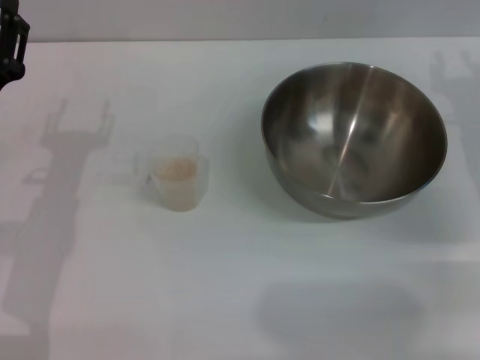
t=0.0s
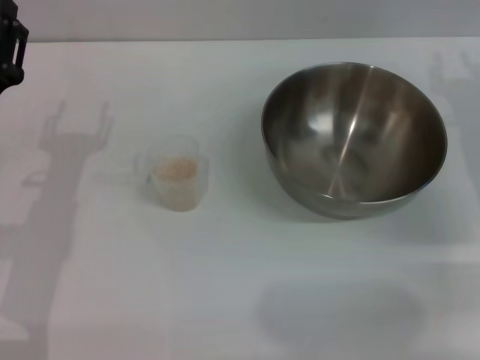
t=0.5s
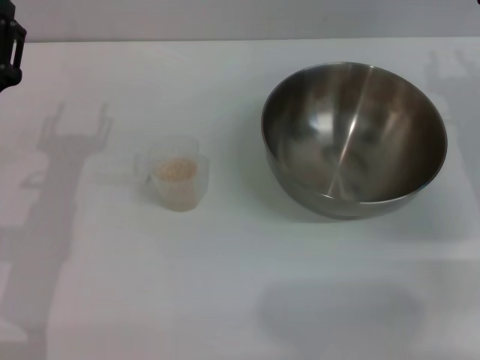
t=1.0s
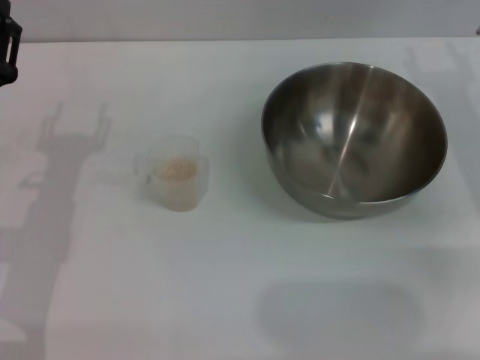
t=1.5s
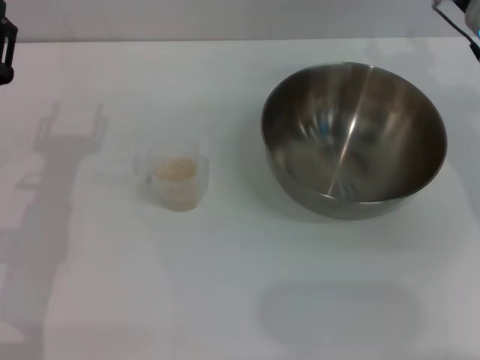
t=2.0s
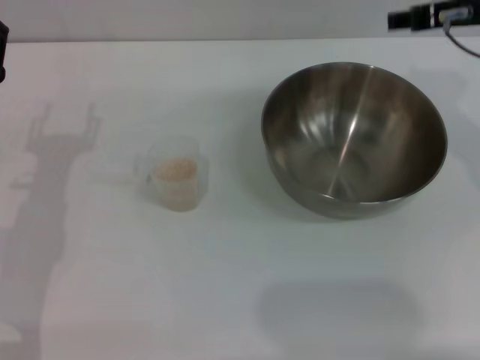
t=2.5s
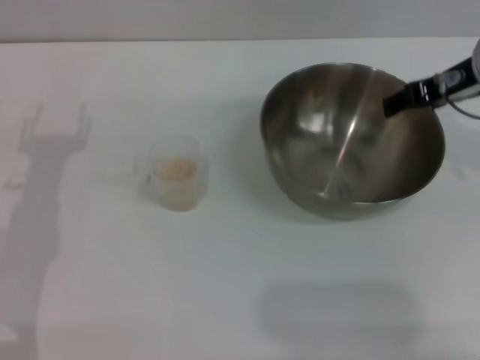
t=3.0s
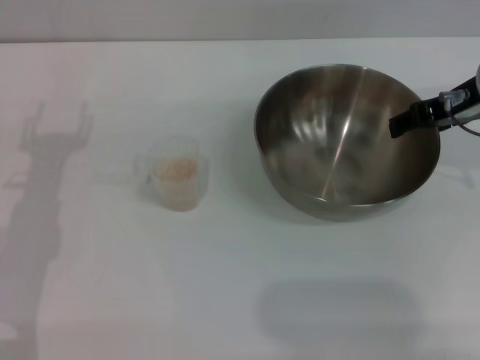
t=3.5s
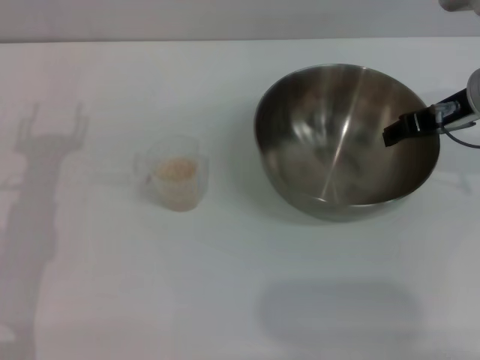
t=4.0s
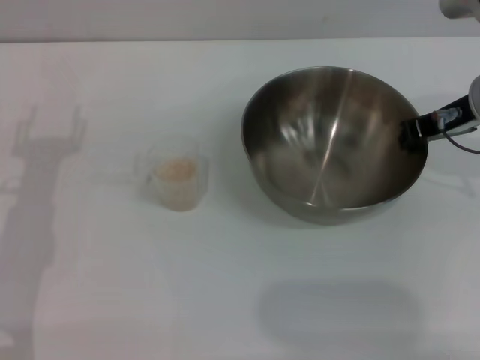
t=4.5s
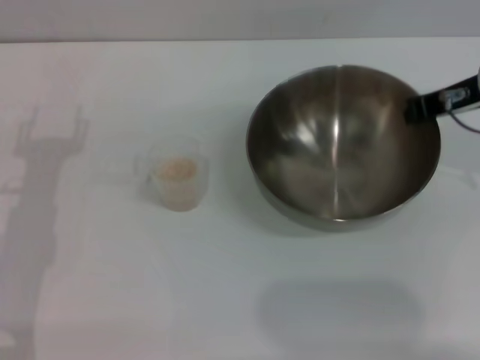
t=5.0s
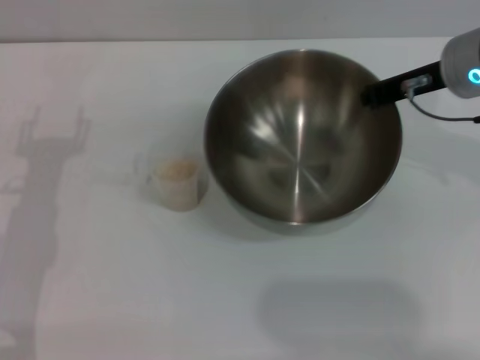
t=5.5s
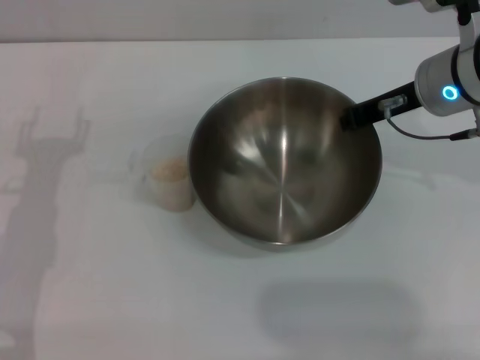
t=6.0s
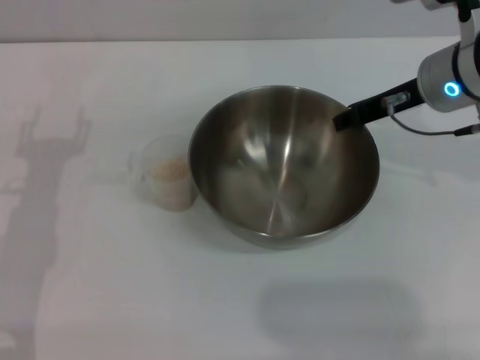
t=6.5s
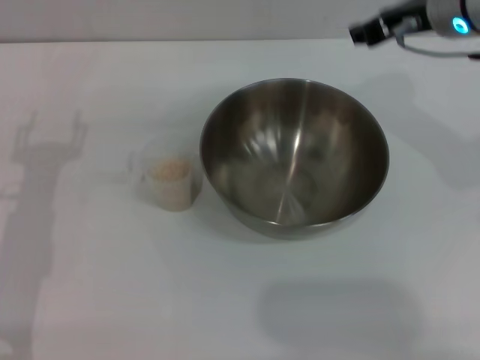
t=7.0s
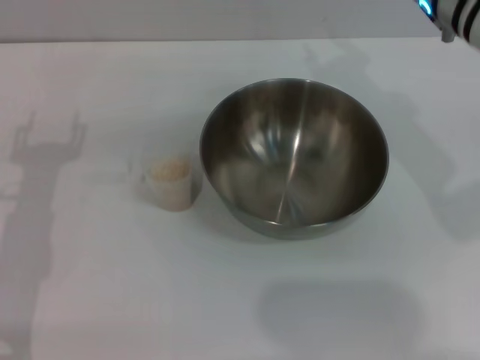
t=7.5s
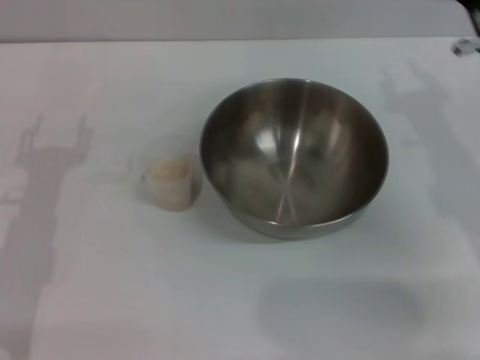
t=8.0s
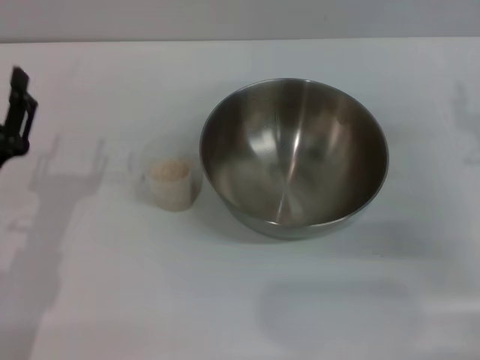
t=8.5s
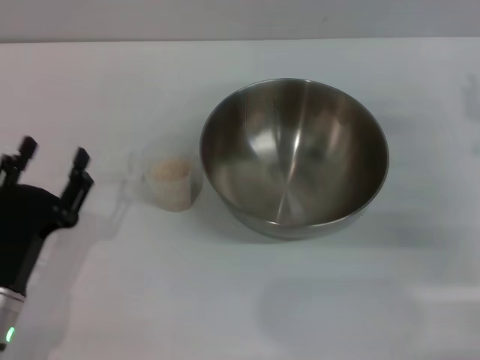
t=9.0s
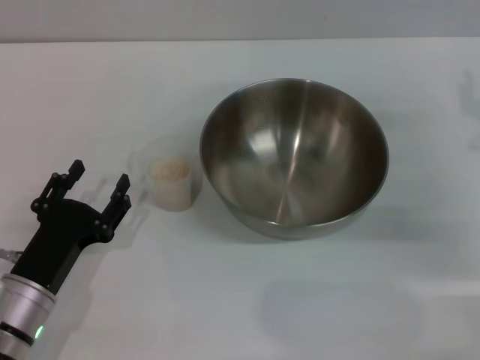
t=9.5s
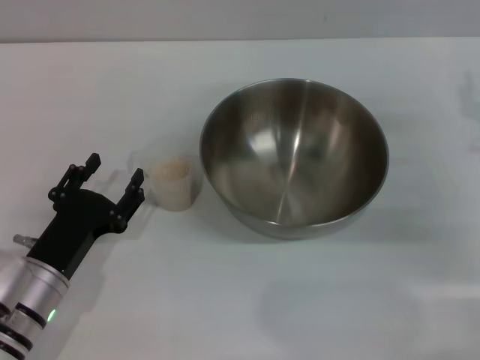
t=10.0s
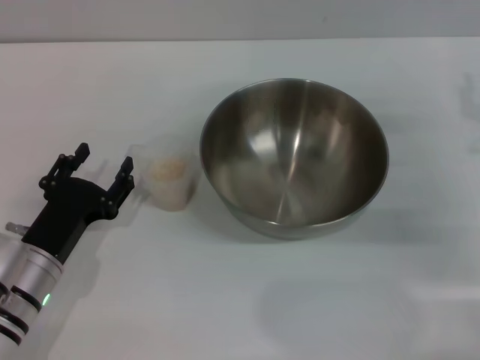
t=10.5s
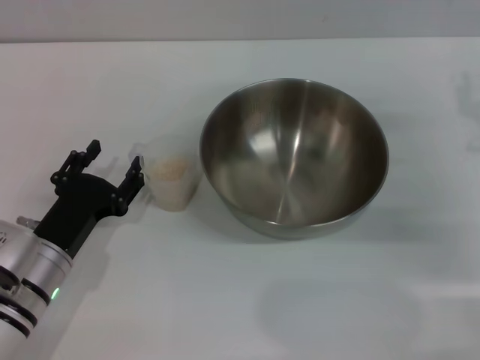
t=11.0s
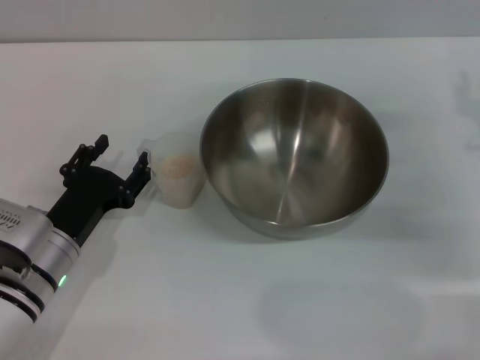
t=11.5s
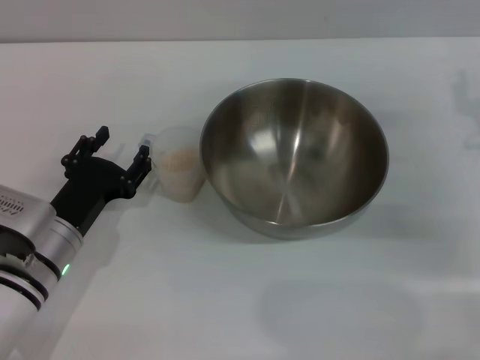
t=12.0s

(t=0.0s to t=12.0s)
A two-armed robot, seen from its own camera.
Task of the whole recording: Place the bowl in the middle of the table with one hand and pour the rice from the grain cup into it with the other hand.
Step, t=0.0s - t=5.0s: Pick up the bowl with the right gripper.
Step, t=5.5s - t=6.5s: Place the bowl in the center of view with the right gripper.
t=0.0s - t=2.0s: The right gripper is displaced upward by some 5 cm, and opens its fingers.
t=4.0s - t=6.0s: The right gripper closes.
t=6.0s - t=8.0s: The right gripper travels backward by roughly 5 cm, and opens up.
t=8.0s - t=10.0s: The right gripper travels to the right by roughly 5 cm; the left gripper shifts approximately 10 cm downward.
t=10.0s - t=12.0s: There are only small adjustments of the grippers.

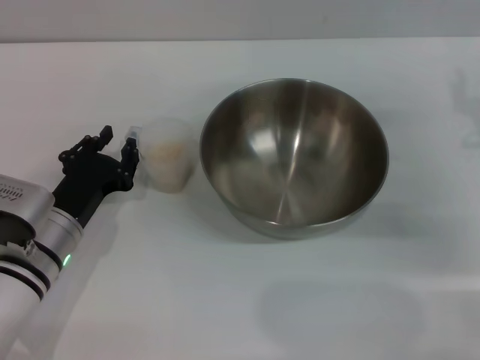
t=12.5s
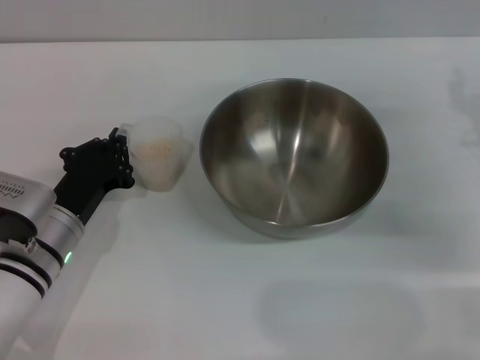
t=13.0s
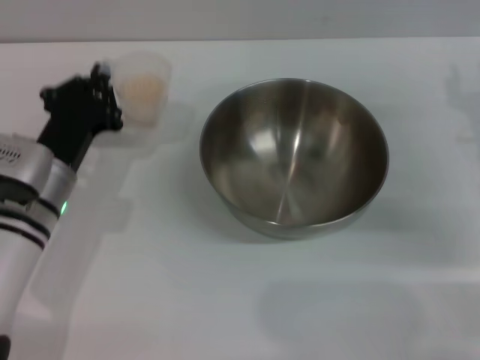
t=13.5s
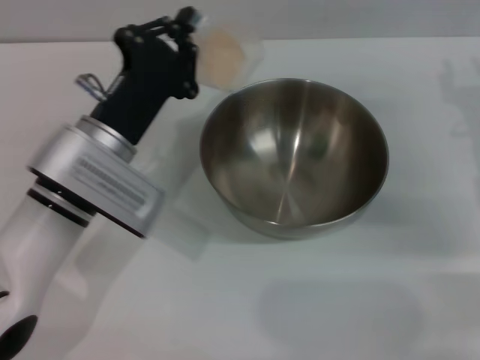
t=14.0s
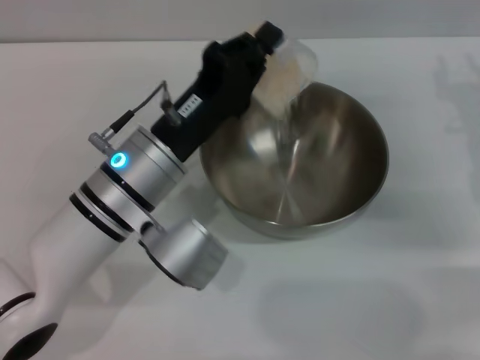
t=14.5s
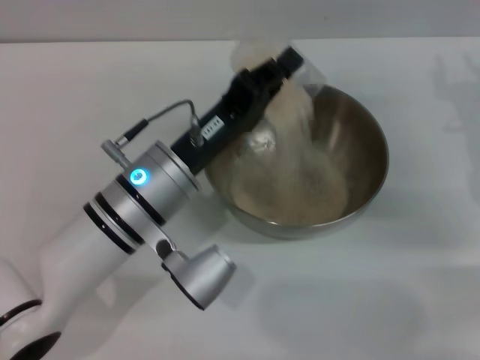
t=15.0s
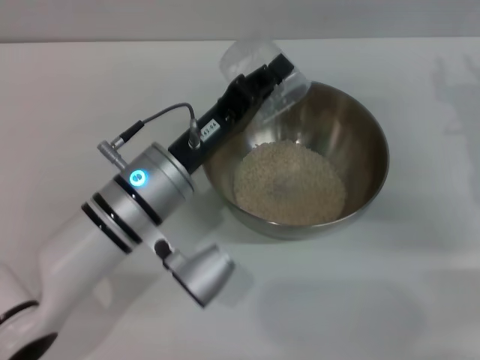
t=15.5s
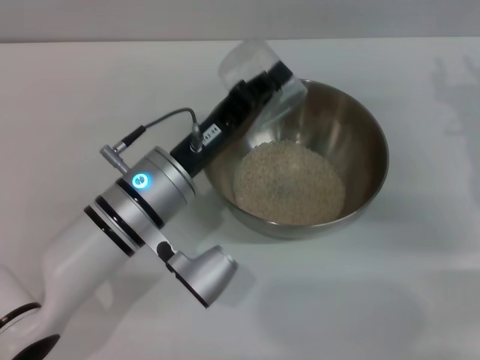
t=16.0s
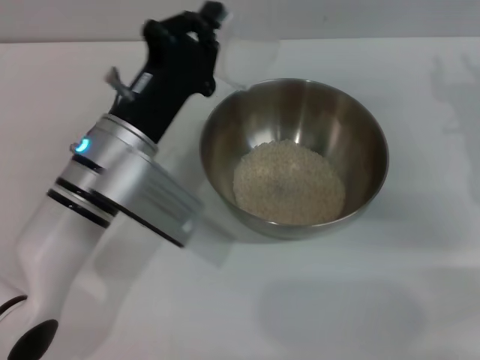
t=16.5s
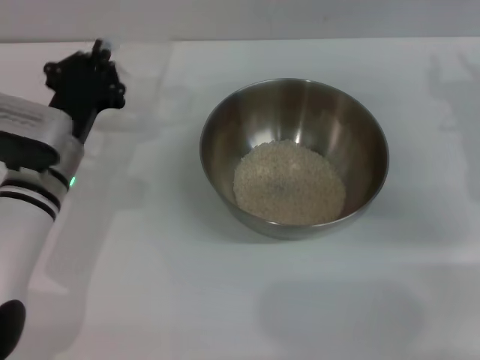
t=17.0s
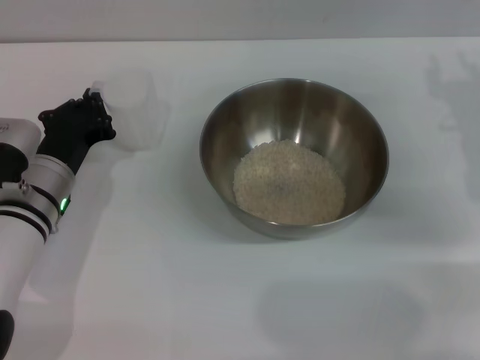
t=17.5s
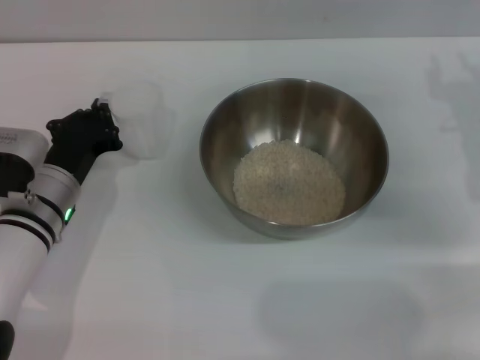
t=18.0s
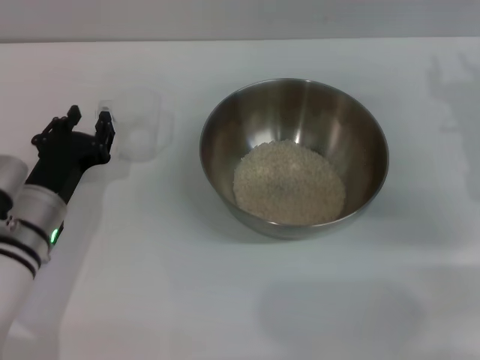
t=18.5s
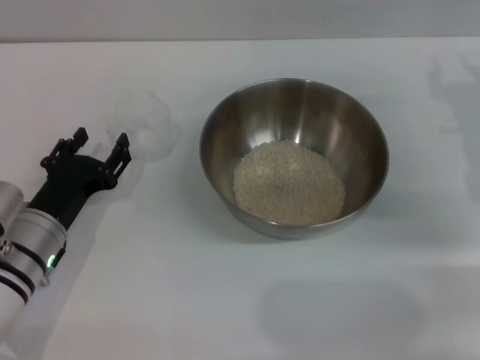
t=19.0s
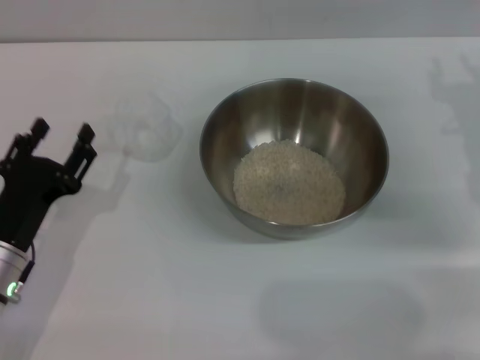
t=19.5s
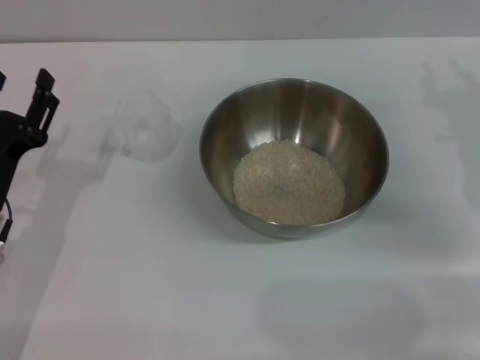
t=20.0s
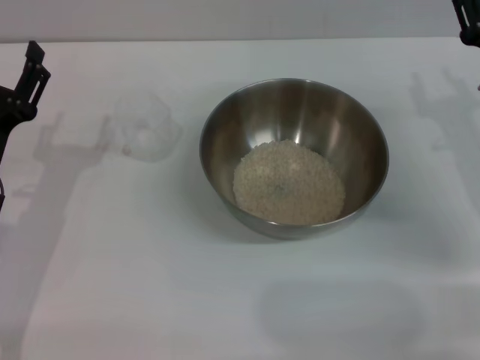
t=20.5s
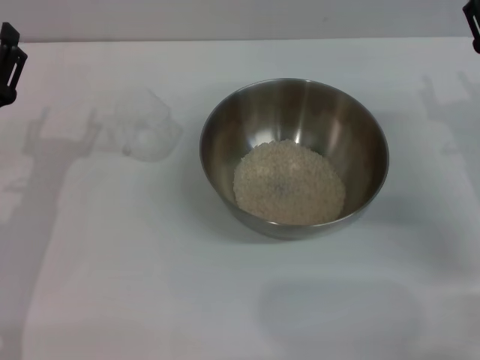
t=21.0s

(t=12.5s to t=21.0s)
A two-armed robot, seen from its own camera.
Task of the whole recording: Place the bowl in the middle of the table with one hand and pour the rice from the grain cup into it with the other hand.
Step, t=13.5s - t=17.0s: Pour the rice from the cup into the bowl with the left gripper.
Step, t=17.5s - t=19.0s: Place the cup on the table with the left gripper.
t=12.5s - t=14.5s: The left gripper goes roughly 15 cm to the right and upward, and closes.
t=16.5s - t=19.0s: The left gripper shifts some 15 cm to the left and downward, and opens its fingers.
t=19.0s - t=21.0s: The left gripper moves upward, some 5 cm.
